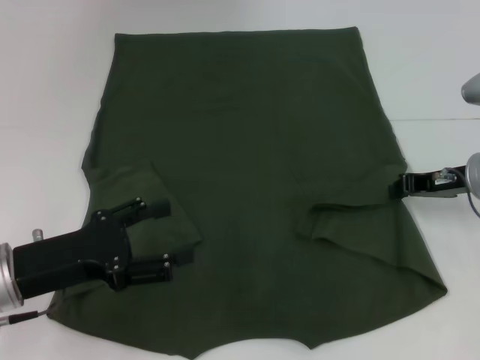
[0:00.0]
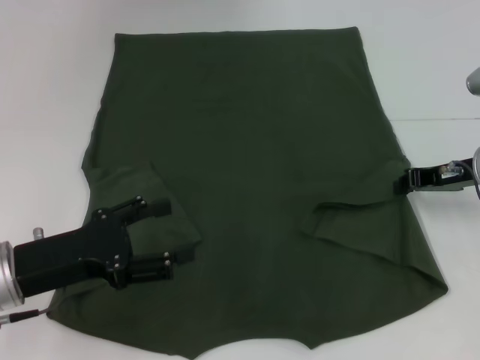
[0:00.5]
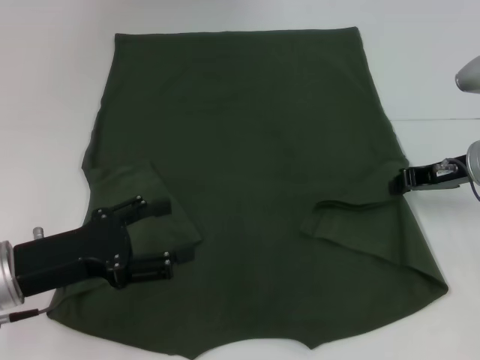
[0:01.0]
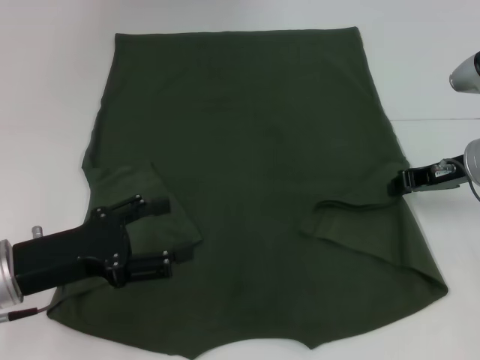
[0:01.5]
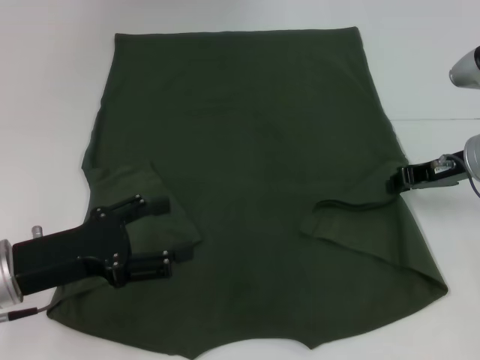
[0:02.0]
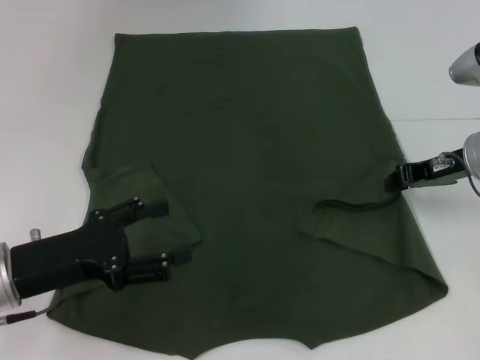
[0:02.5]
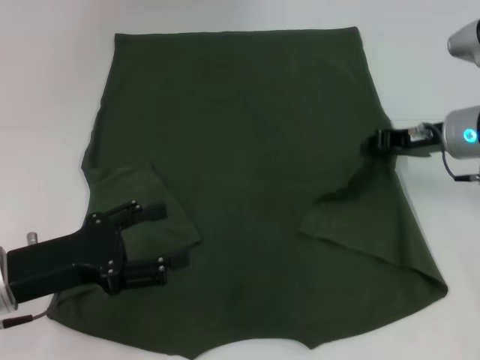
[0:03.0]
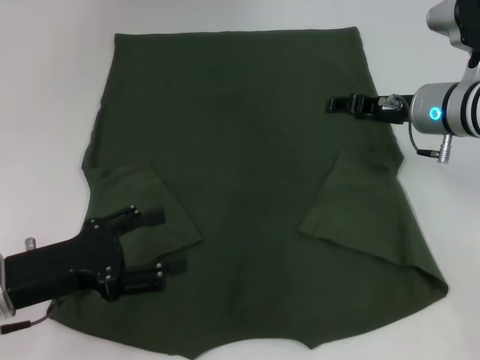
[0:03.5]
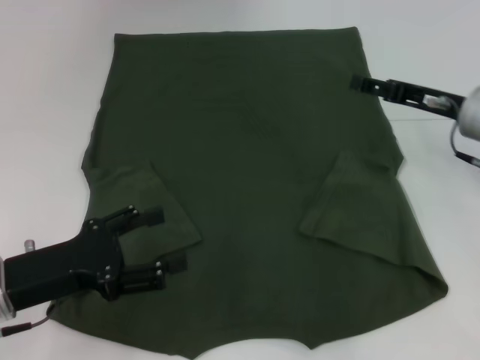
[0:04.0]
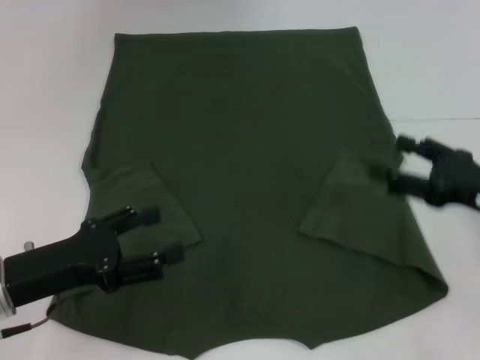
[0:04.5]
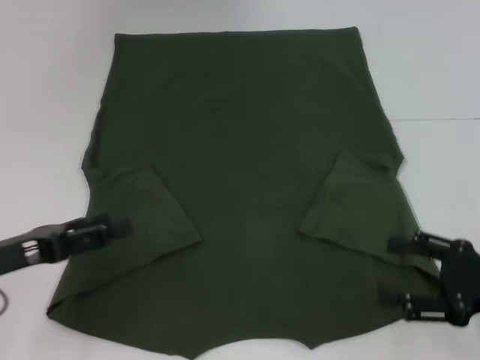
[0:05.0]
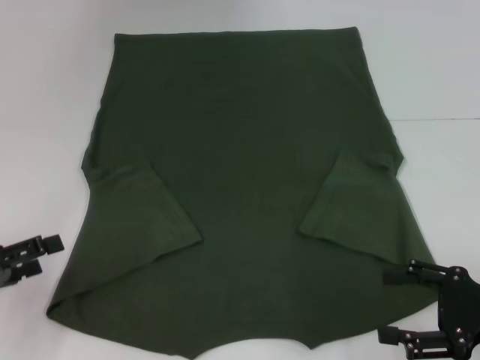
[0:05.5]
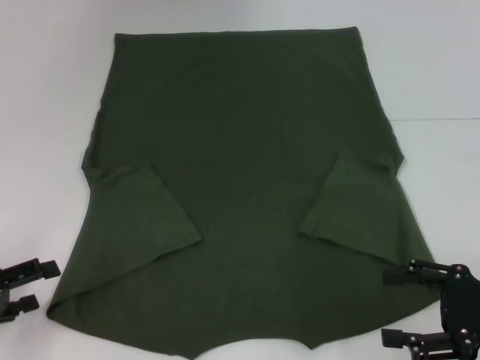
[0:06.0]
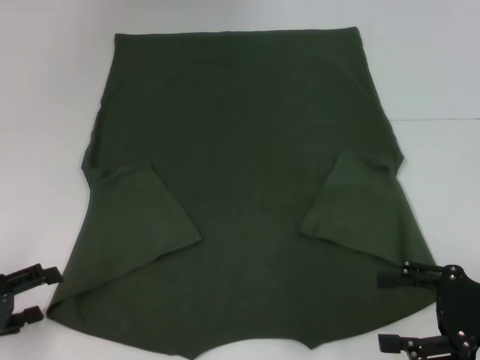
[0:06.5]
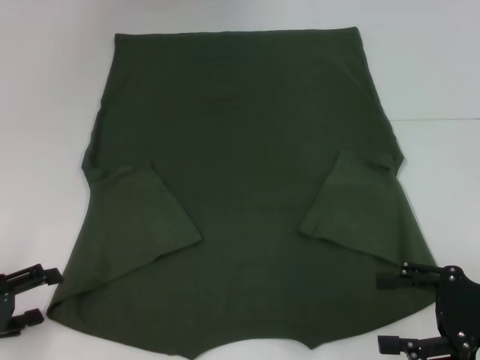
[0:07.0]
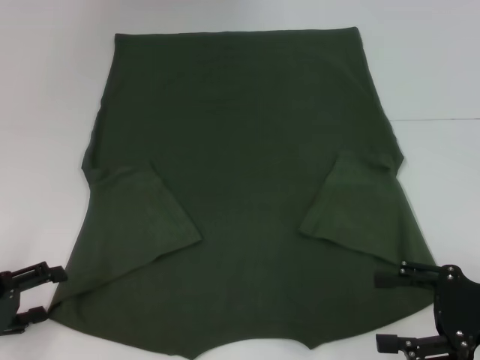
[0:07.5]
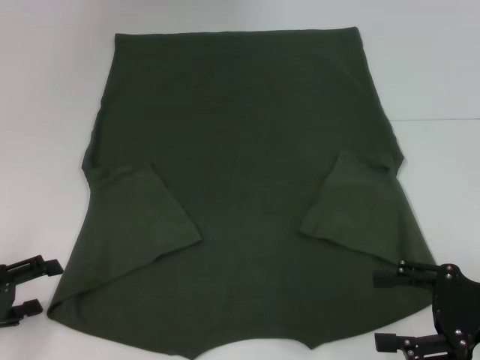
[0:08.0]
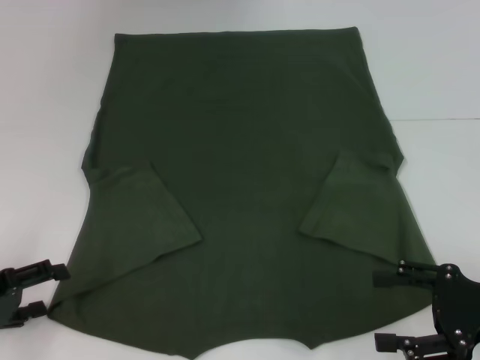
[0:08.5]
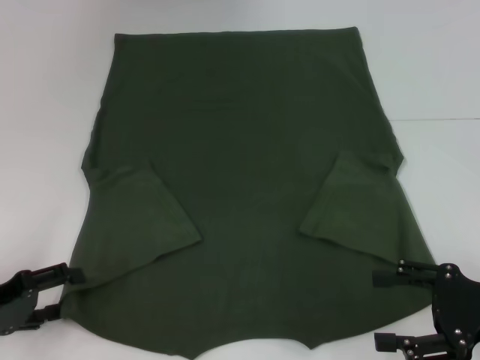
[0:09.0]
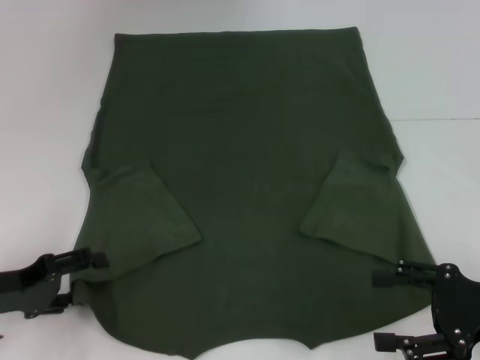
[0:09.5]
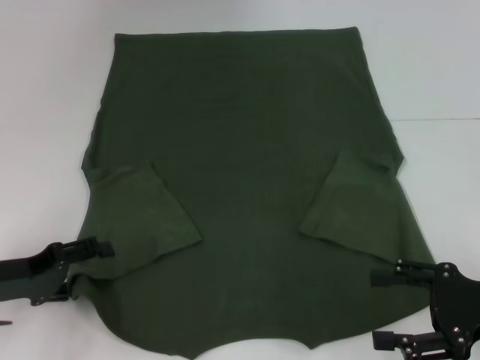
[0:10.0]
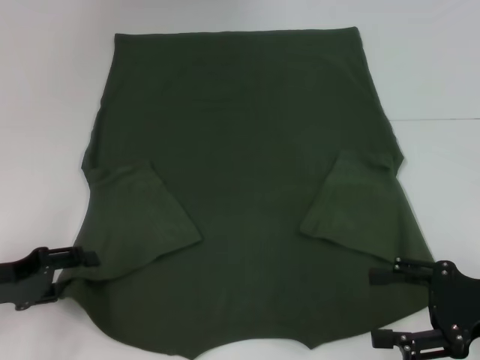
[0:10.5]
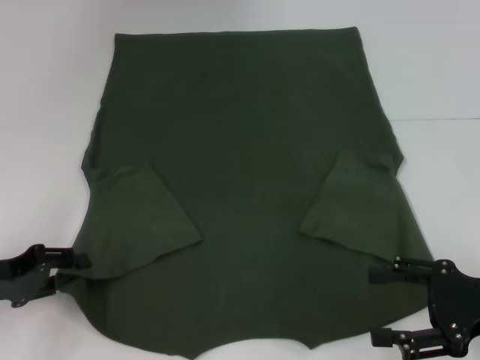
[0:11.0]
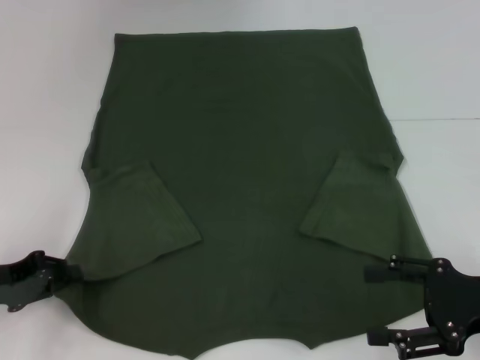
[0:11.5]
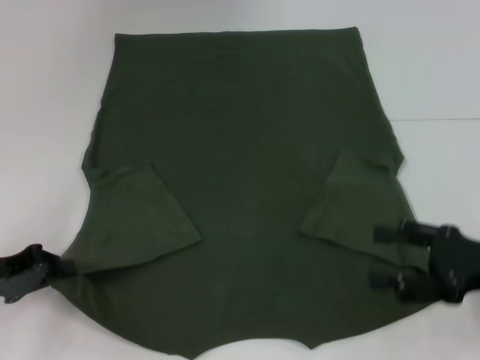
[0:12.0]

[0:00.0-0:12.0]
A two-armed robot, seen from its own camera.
Step, 0:00.0 to 0:03.5: Fold the bottom right sleeve with your right hand.
0:00.0 to 0:02.0: The grippers move only a little.
0:02.0 to 0:04.0: The right gripper opens its fingers.
0:04.0 to 0:06.0: The right gripper goes approximately 15 cm backward. Meanwhile the left gripper travels to the left by some 10 cm.
0:06.0 to 0:08.0: The grippers make only small movements.
0:08.0 to 0:10.0: The left gripper changes place by roughly 5 cm.
0:10.0 to 0:12.0: The left gripper closes up.

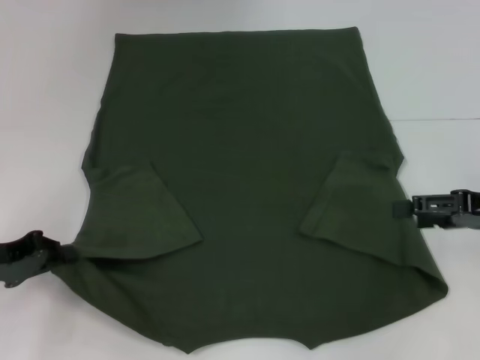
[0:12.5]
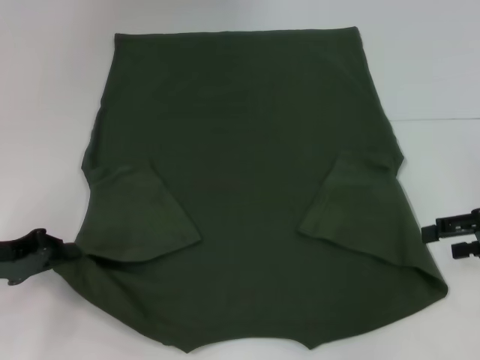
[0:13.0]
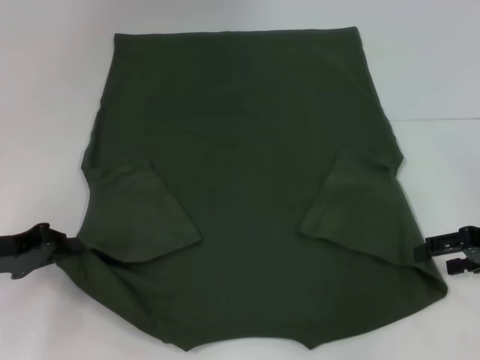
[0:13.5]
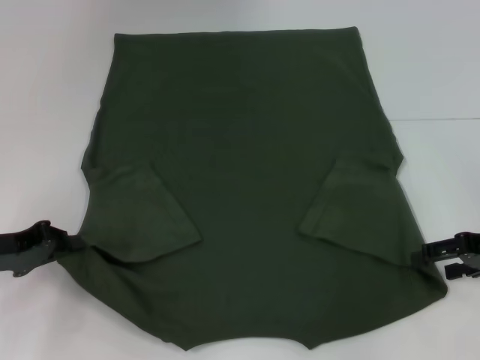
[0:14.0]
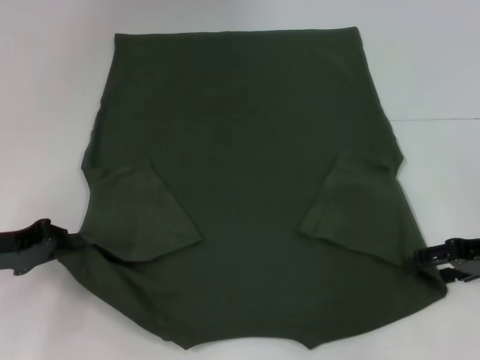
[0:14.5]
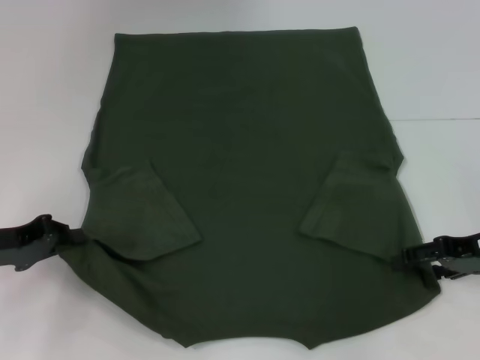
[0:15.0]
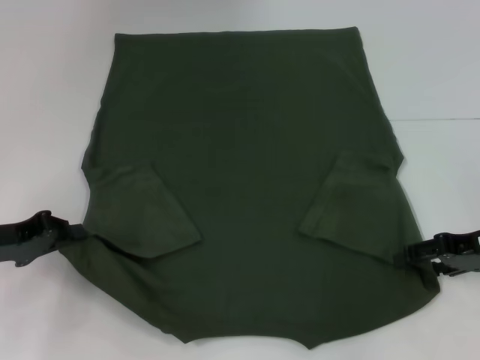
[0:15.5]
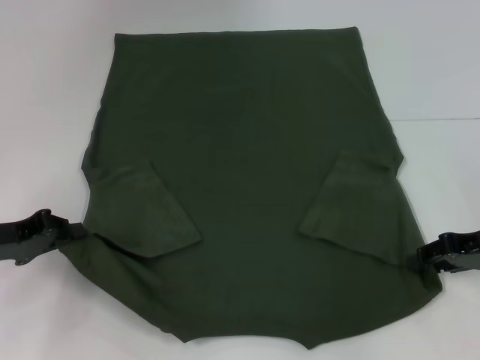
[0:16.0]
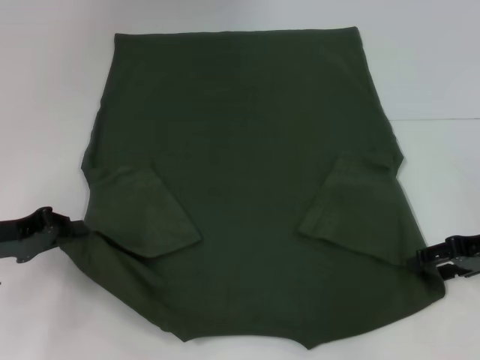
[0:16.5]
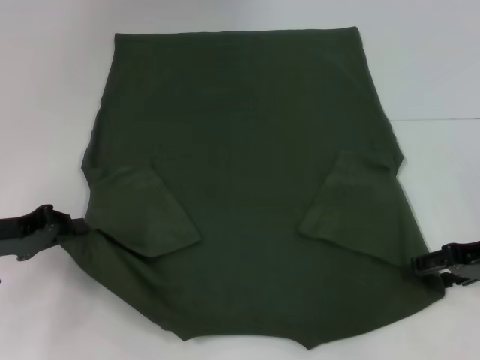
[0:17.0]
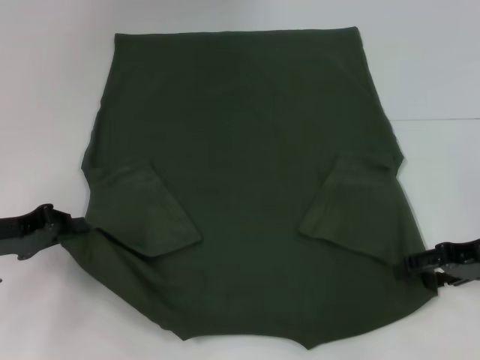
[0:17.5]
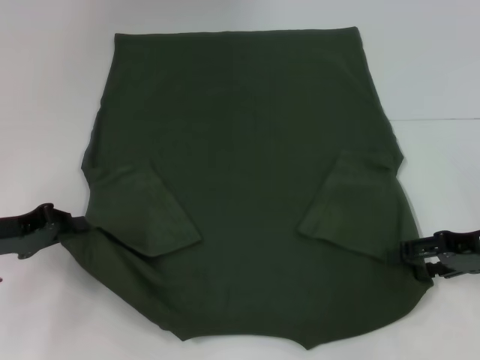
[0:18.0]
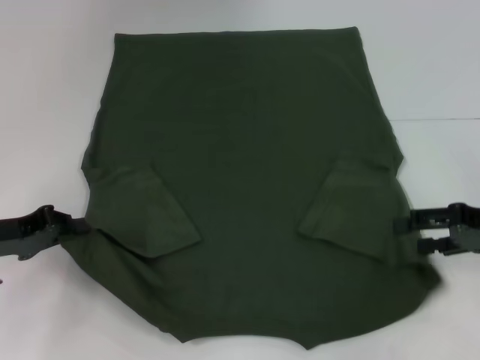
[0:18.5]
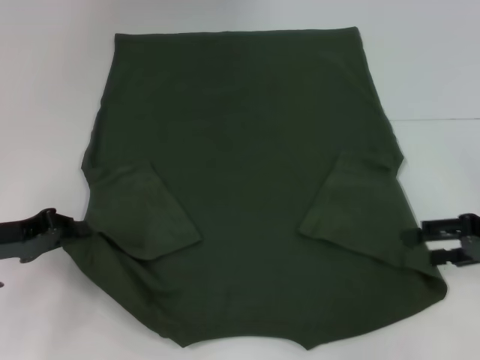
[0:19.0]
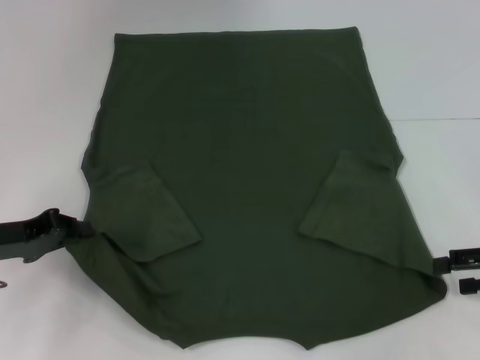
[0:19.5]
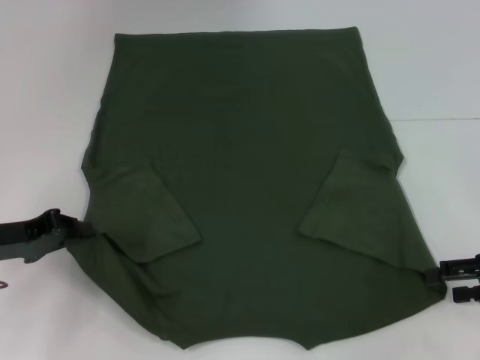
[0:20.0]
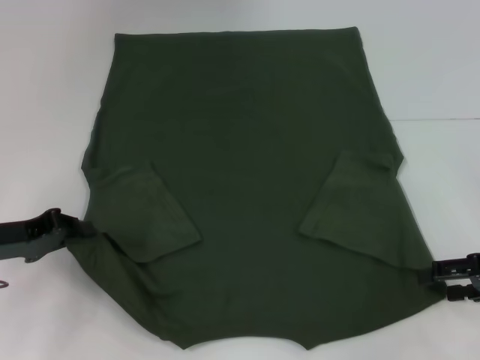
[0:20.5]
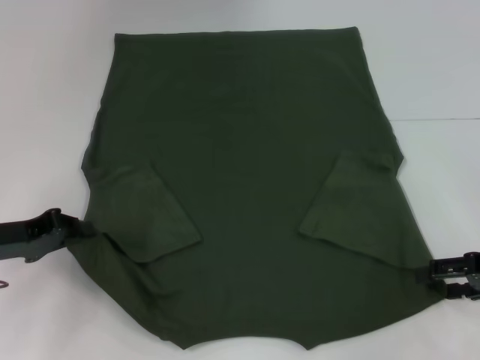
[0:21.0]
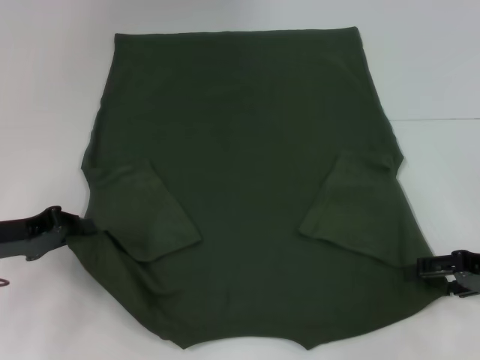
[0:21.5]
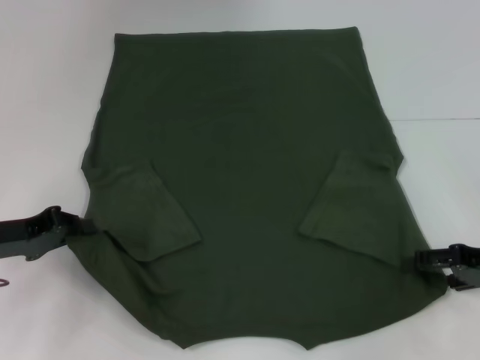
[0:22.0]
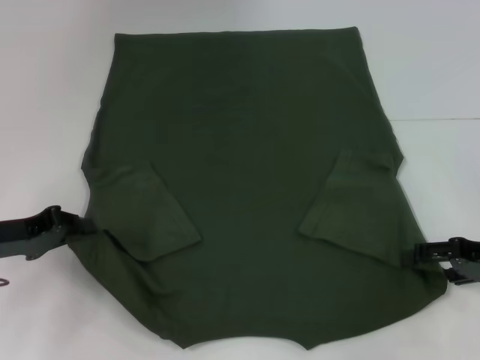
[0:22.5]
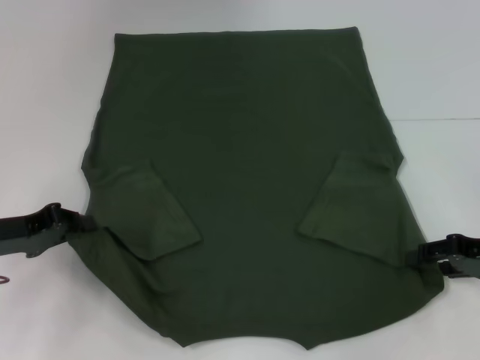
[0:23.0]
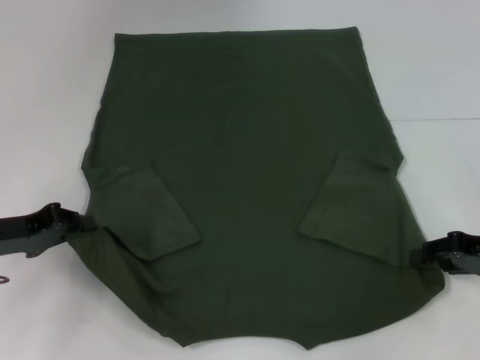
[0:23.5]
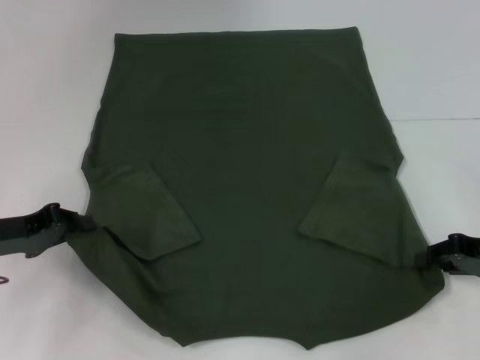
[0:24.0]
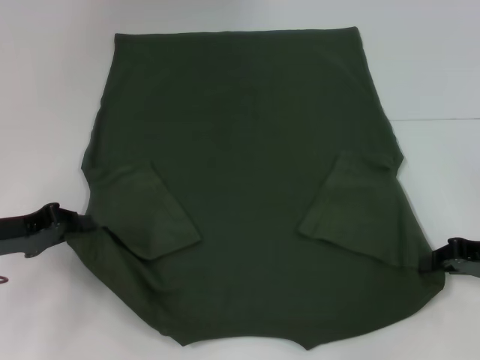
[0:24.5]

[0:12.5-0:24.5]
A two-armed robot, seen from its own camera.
0:12.5 to 0:14.5: The grippers stay close to where they were, moving slightly.
0:14.5 to 0:16.5: Both grippers stay put.
0:16.5 to 0:22.5: There are only small adjustments of the grippers.
0:22.5 to 0:24.5: The right gripper closes its fingers.

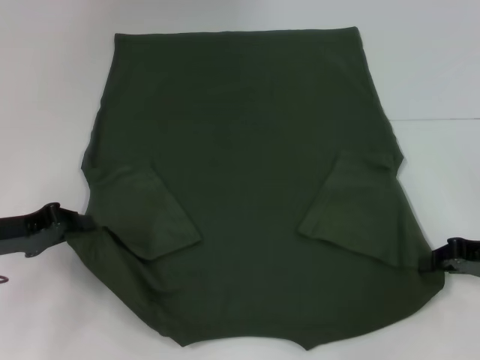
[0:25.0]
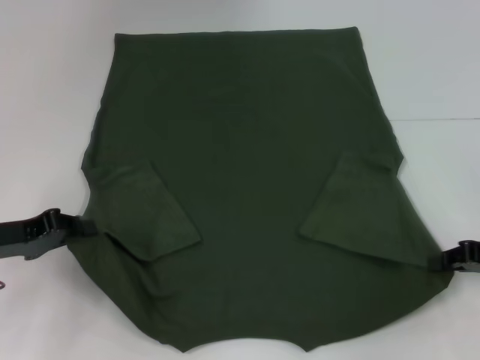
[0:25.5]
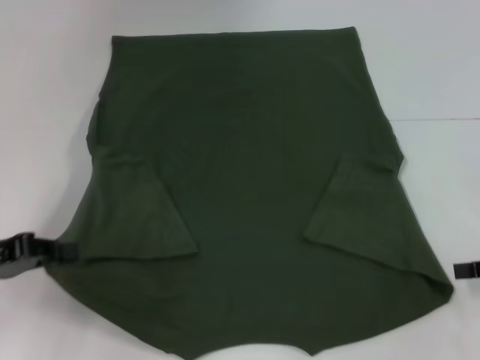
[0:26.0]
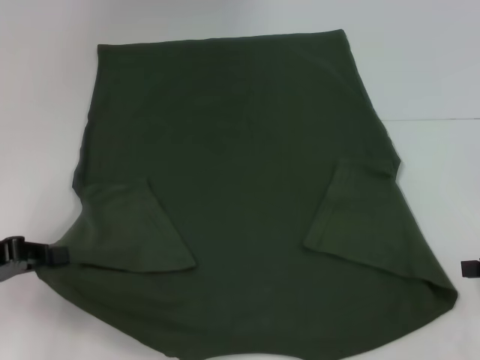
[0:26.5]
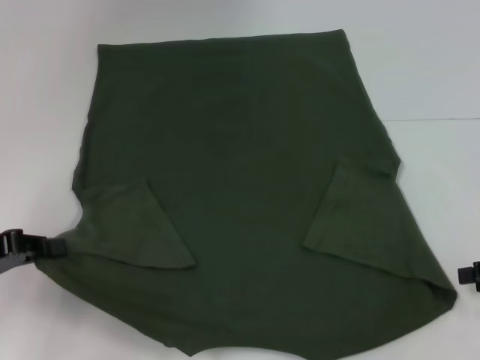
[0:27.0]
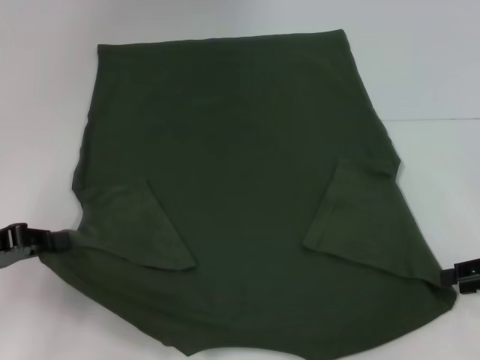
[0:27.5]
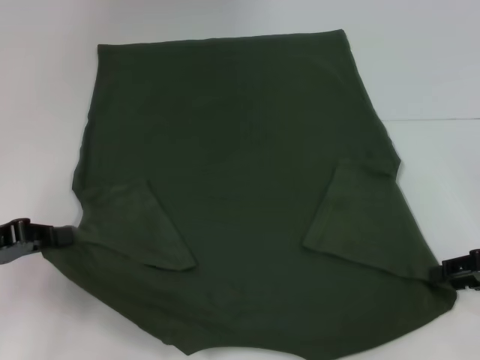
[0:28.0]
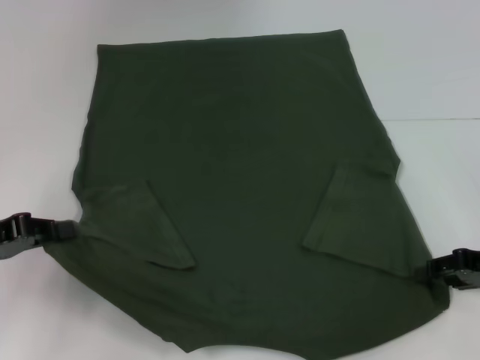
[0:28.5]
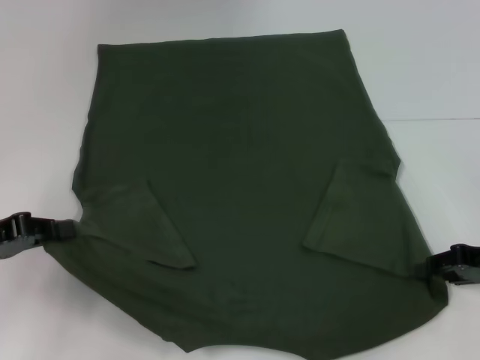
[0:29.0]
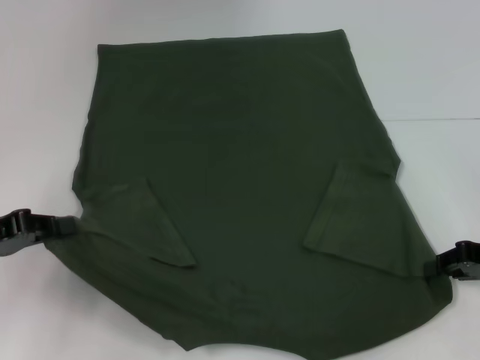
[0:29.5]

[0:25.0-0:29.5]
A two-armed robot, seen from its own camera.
0:25.0 to 0:27.0: The right gripper shifts by approximately 5 cm. Meanwhile the left gripper shifts by roughly 5 cm.
0:27.0 to 0:29.5: The right gripper moves roughly 5 cm.
